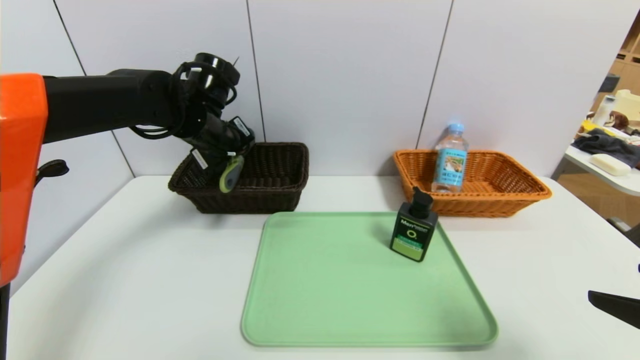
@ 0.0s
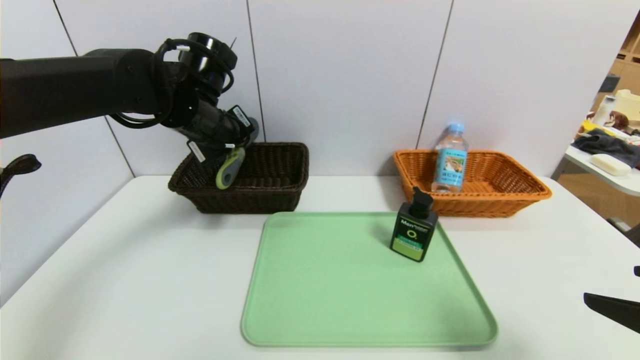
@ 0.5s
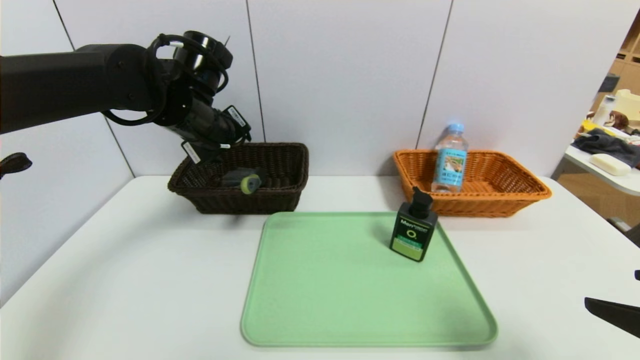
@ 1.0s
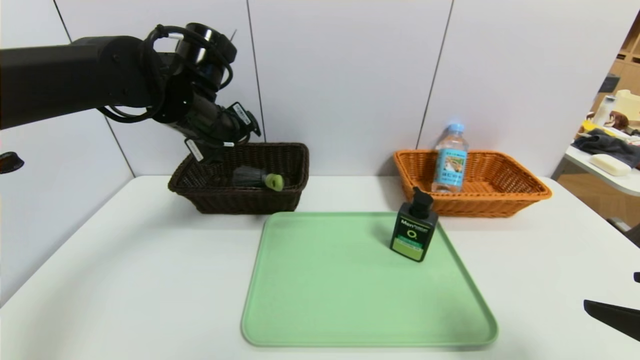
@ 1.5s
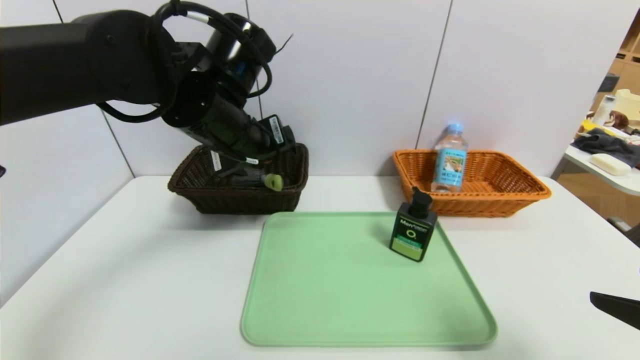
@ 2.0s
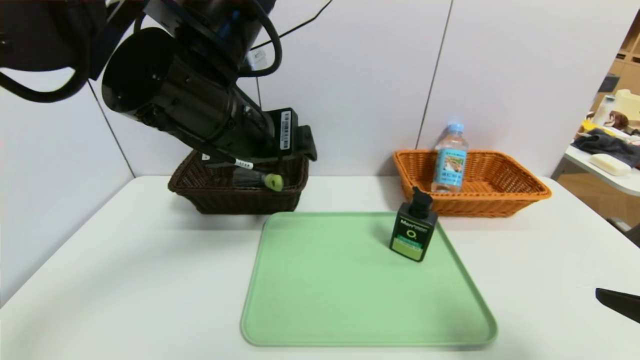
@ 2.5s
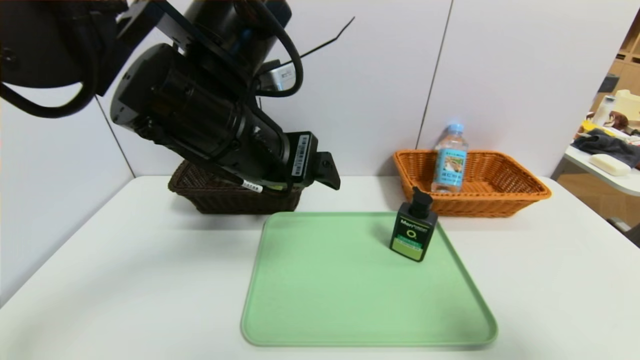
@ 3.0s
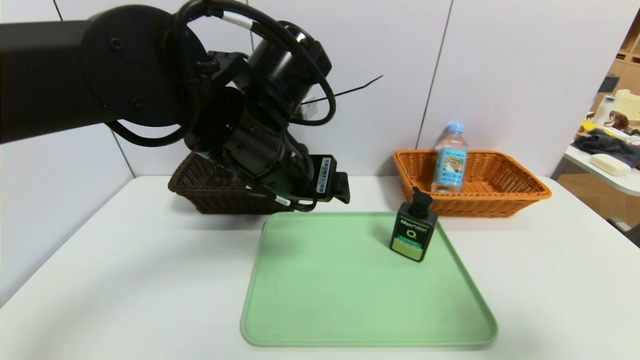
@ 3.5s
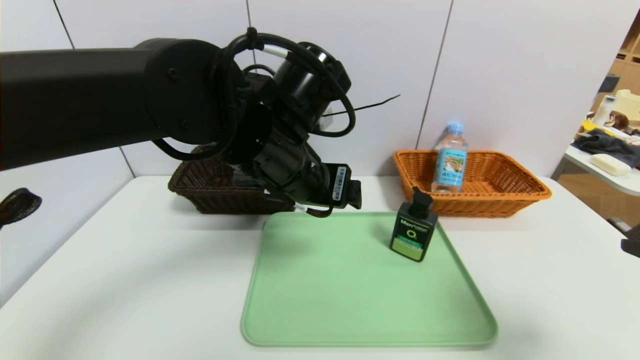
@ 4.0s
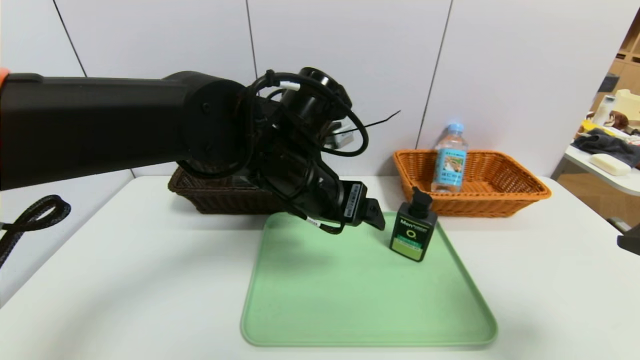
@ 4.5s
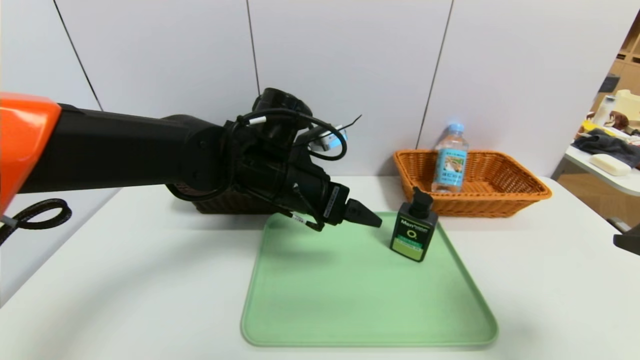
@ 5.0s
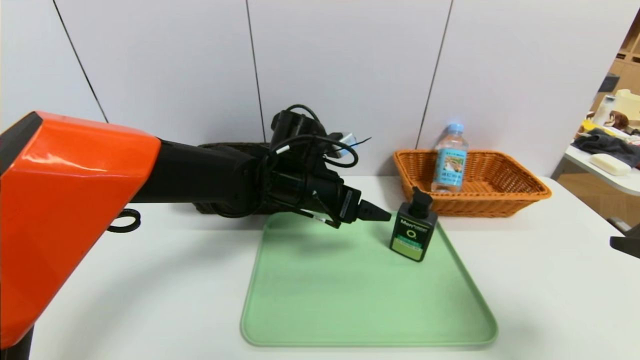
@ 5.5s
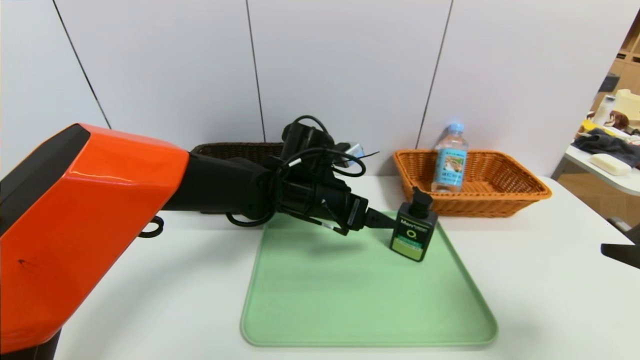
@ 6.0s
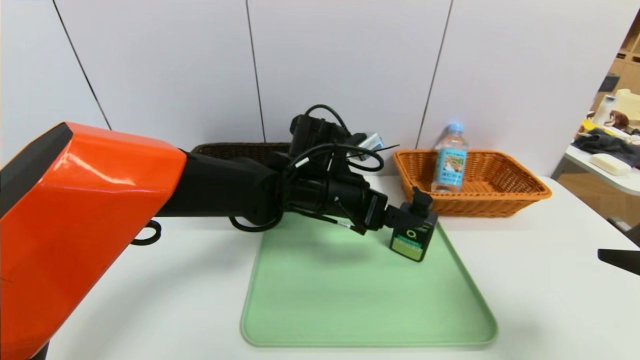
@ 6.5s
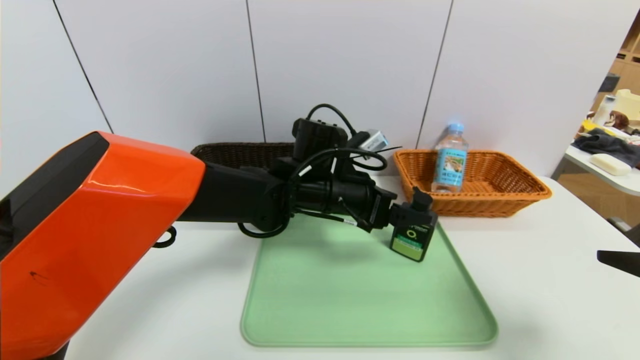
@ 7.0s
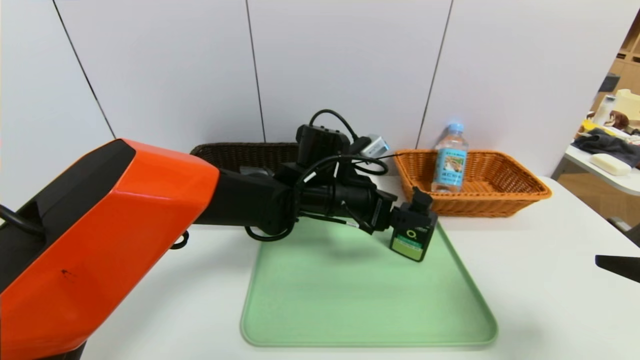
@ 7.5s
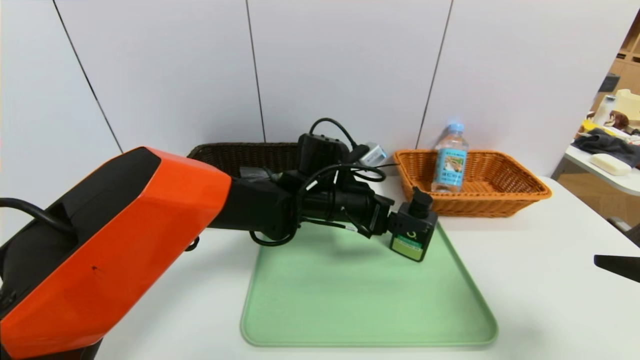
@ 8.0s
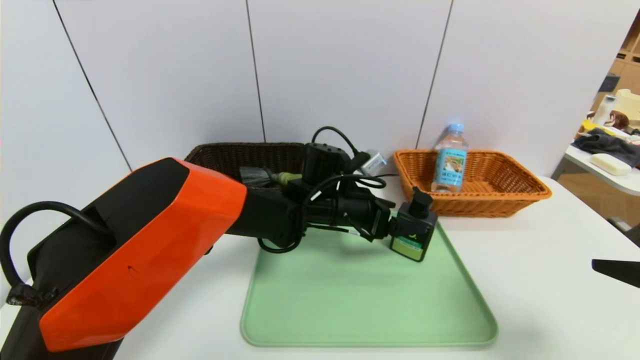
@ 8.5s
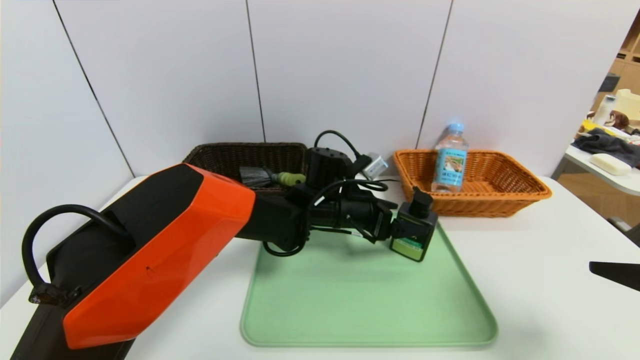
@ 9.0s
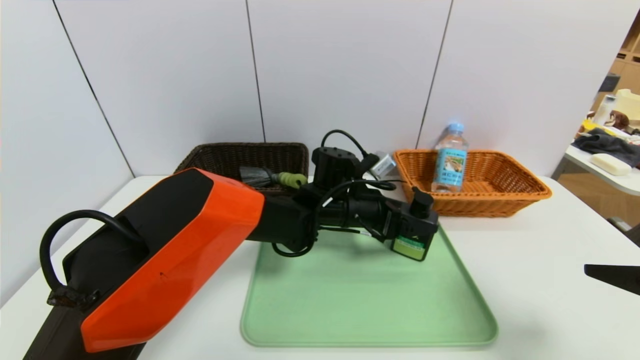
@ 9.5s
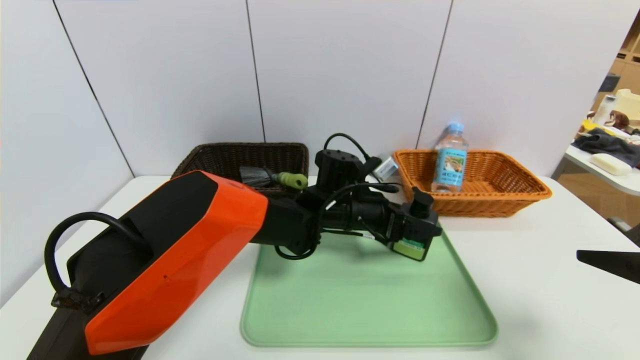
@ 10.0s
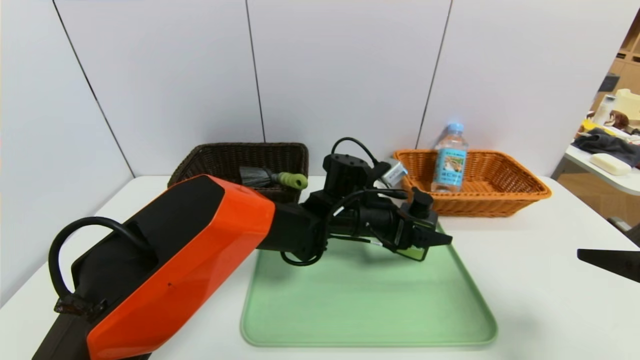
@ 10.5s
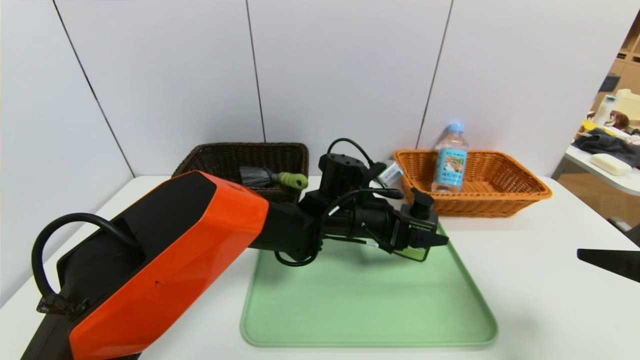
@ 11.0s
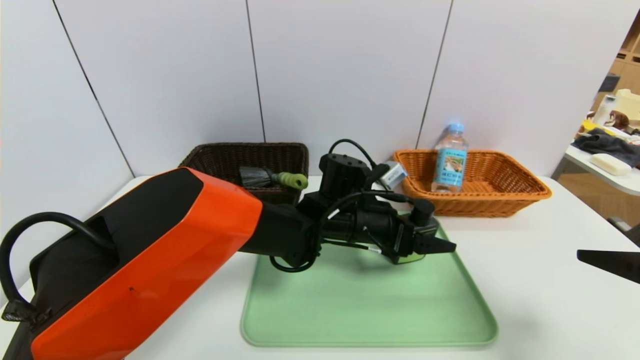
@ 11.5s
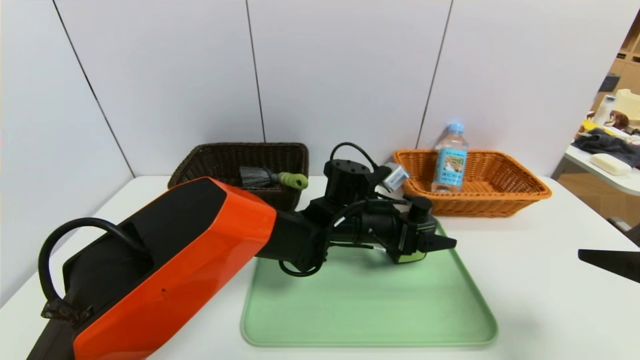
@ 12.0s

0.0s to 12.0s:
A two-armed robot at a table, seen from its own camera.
Task of the whole recording: place the food in the right basket with the right gripper, and place the non food items in the left basket with the left gripper.
0.0s to 2.0s: The left gripper is displaced backward and to the right by about 10 cm, and opens up.
2.0s to 4.0s: The left gripper shifts some 5 cm to the right.
4.0s to 6.0s: The left gripper heads downward and forward, covering approximately 15 cm.
6.0s to 8.0s: The grippers make only small movements.
10.0s to 12.0s: There are only small adjustments of the grippers.

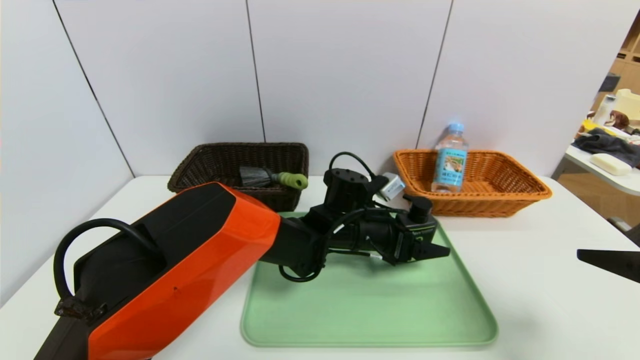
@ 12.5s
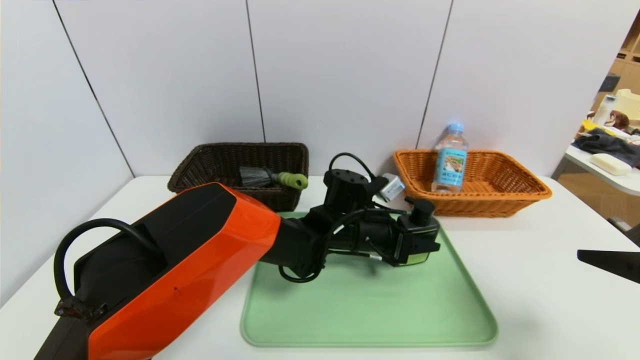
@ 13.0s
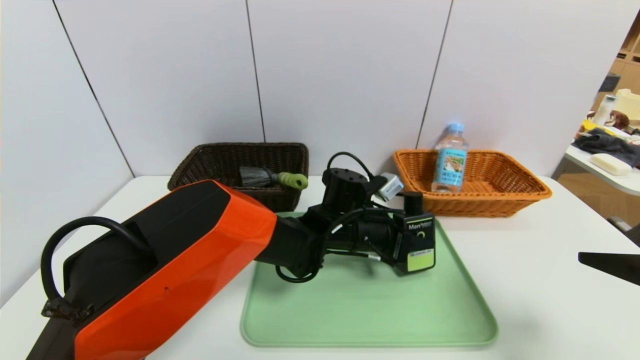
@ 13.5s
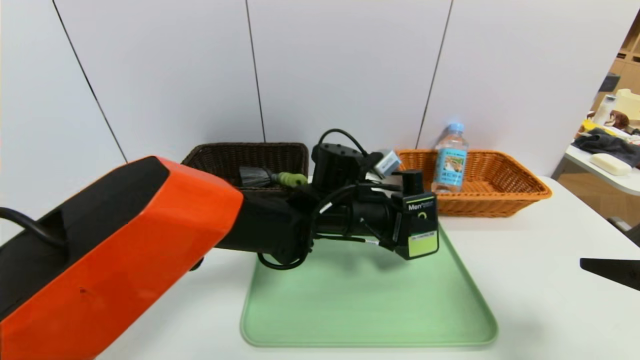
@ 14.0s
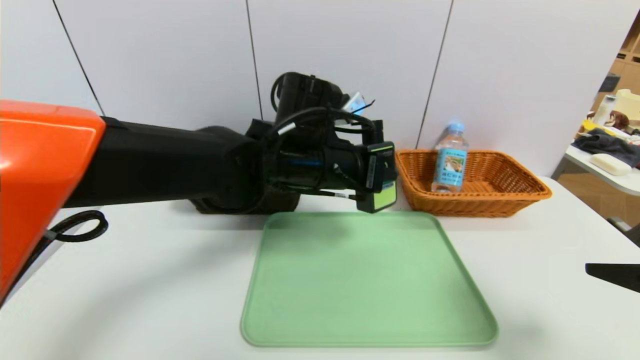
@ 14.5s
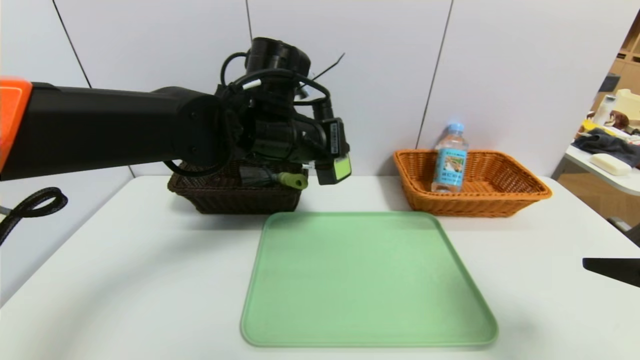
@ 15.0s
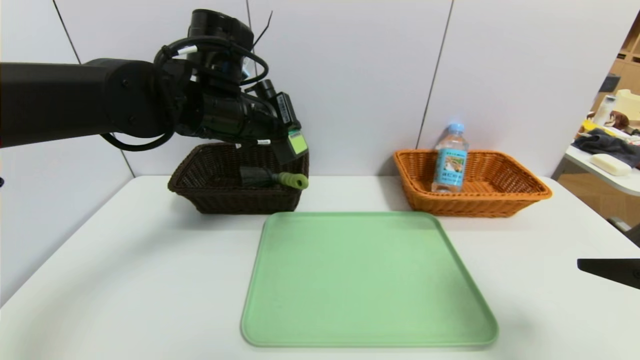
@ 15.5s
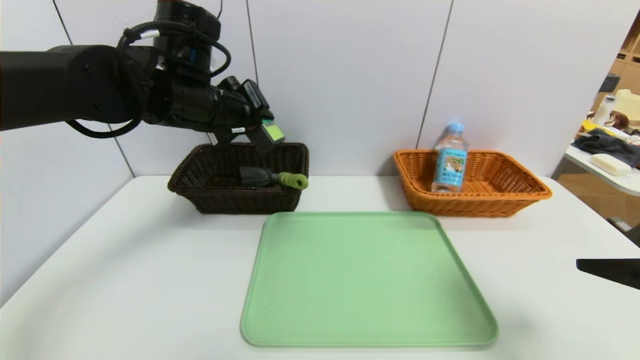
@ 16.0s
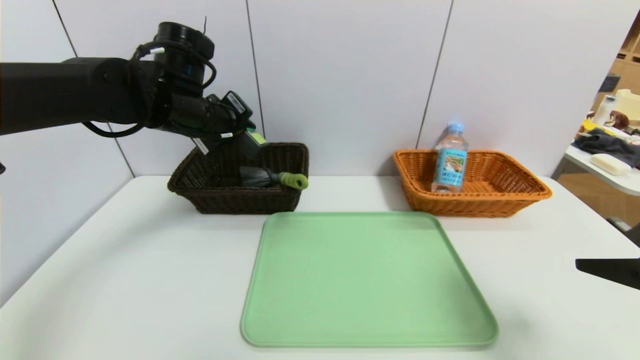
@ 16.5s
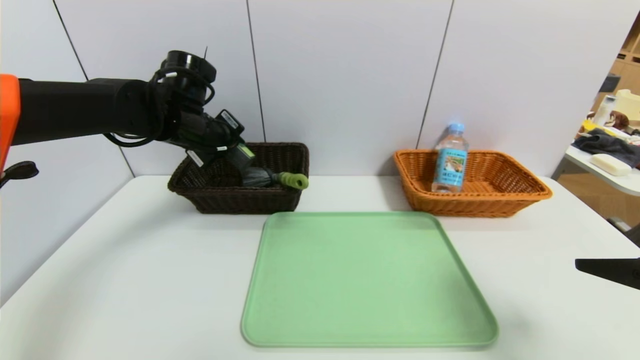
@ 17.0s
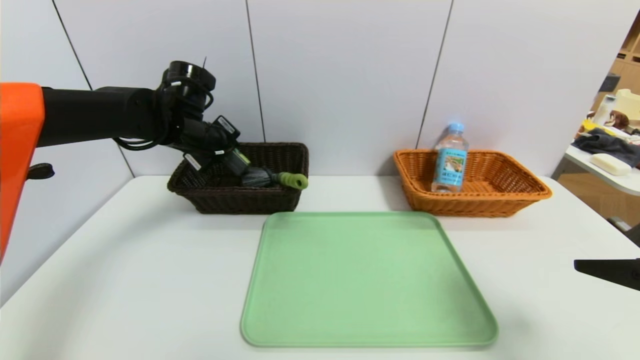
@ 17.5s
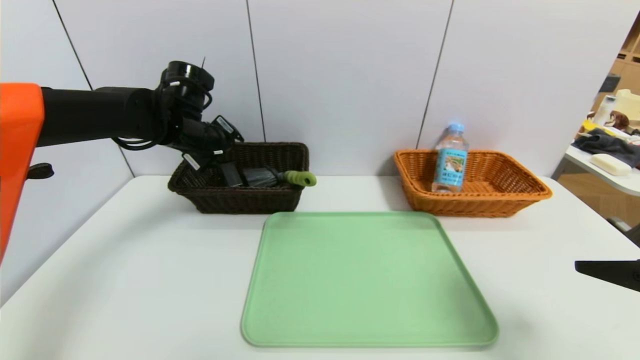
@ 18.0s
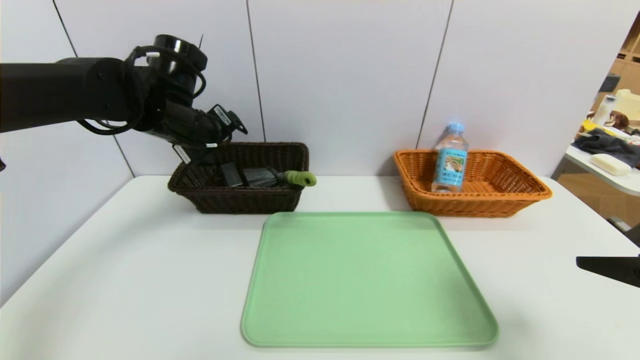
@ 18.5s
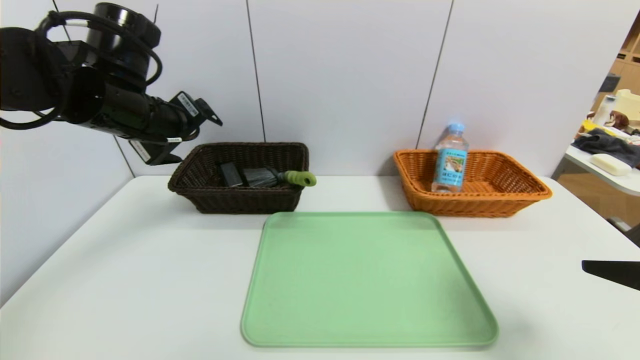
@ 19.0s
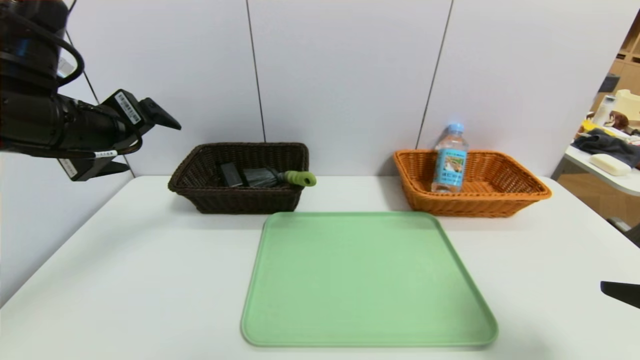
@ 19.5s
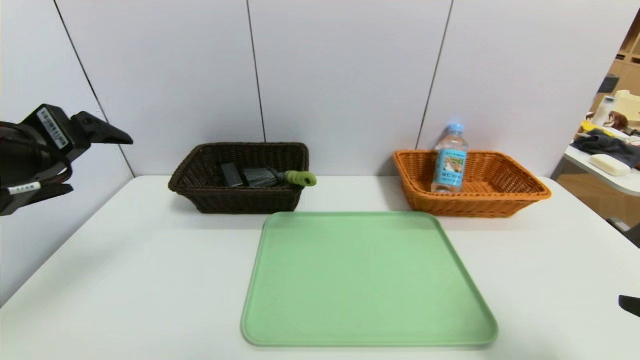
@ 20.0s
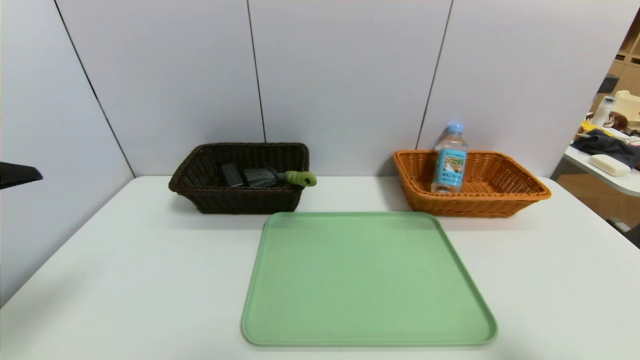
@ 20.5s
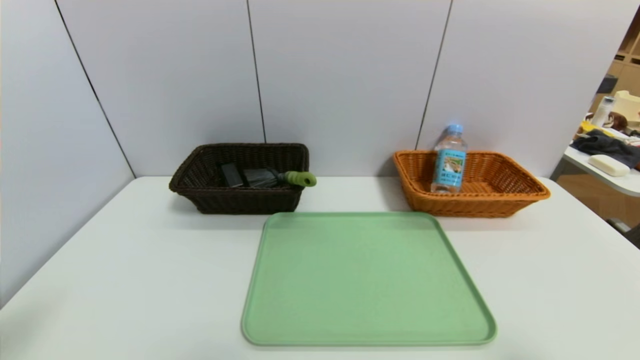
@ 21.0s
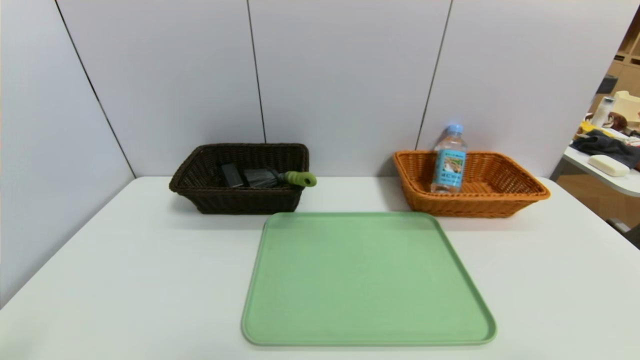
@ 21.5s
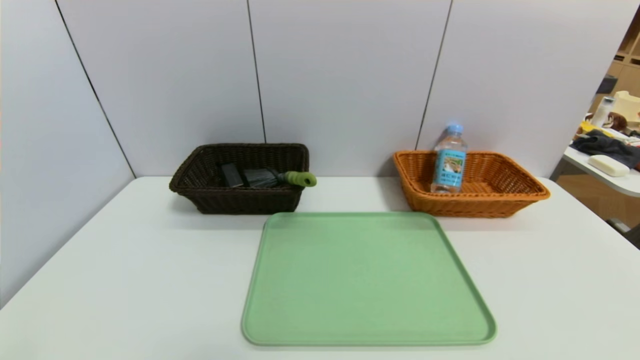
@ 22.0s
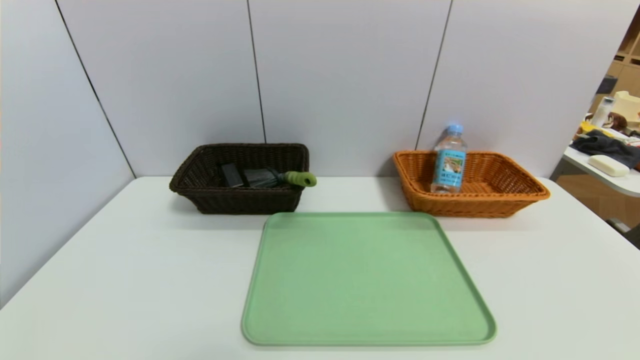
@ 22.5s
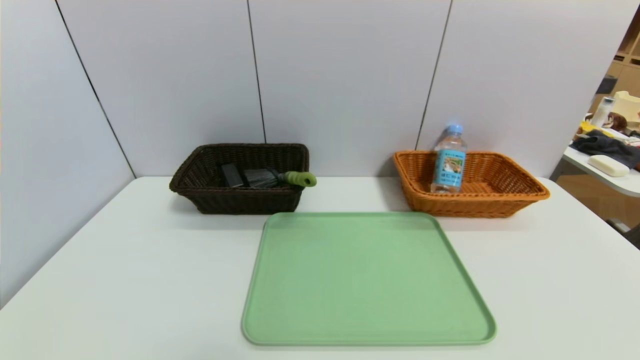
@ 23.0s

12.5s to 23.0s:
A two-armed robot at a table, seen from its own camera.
Task of the whole recording: place the food in the right basket with the right gripper, and place the non food items in the left basket with the left gripper.
Step, 12.5s to 18.0s: Grasp the hard cleanser and put it in the left basket.
12.5s to 14.5s: The left gripper is displaced upward and to the left by approximately 15 cm, and closes its fingers.
14.5s to 16.5s: The left gripper travels to the left and forward by about 20 cm.
16.5s to 19.0s: The left gripper goes some 5 cm backward, and opens.
19.0s to 21.0s: The left gripper goes roughly 30 cm backward. Meanwhile the right gripper heads backward, covering some 10 cm.
